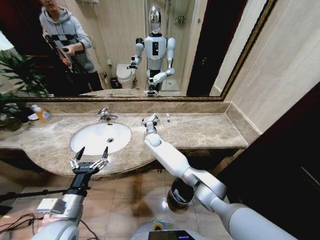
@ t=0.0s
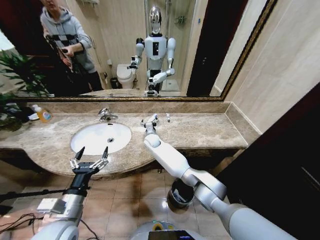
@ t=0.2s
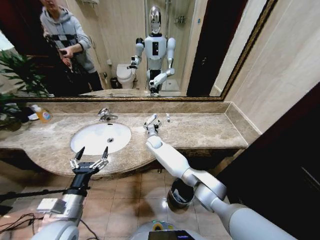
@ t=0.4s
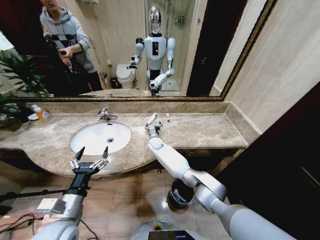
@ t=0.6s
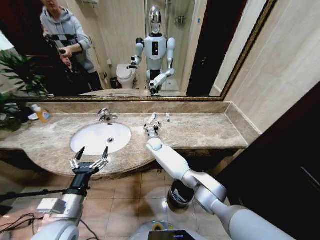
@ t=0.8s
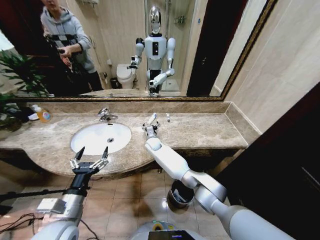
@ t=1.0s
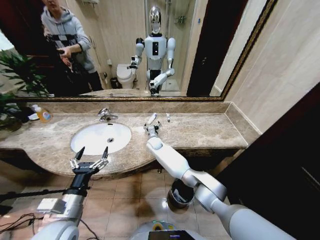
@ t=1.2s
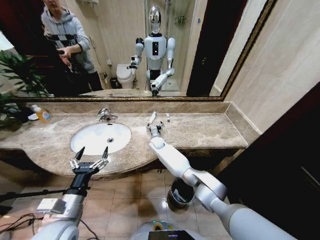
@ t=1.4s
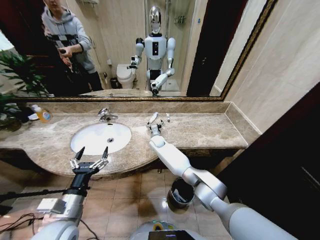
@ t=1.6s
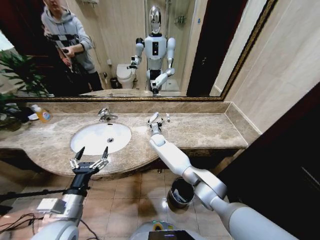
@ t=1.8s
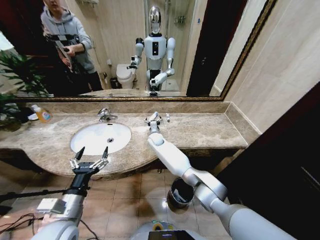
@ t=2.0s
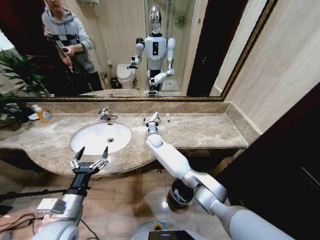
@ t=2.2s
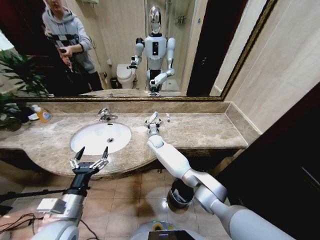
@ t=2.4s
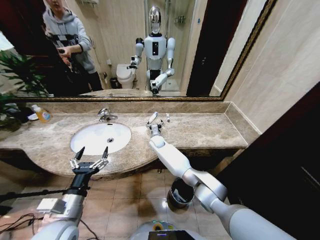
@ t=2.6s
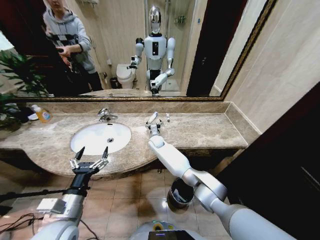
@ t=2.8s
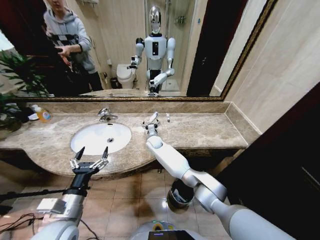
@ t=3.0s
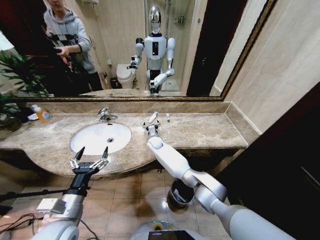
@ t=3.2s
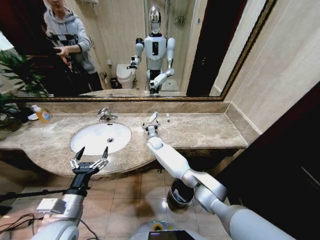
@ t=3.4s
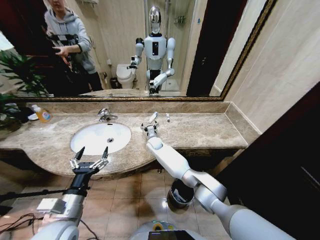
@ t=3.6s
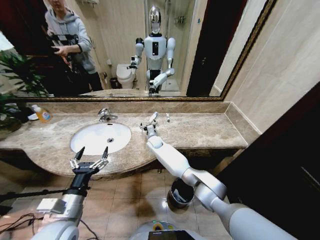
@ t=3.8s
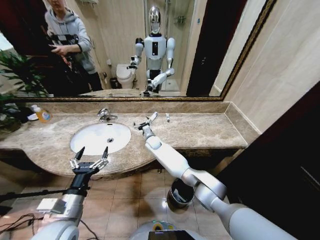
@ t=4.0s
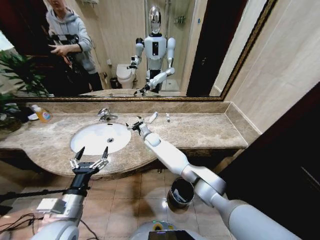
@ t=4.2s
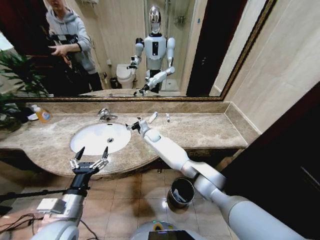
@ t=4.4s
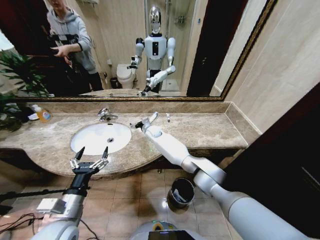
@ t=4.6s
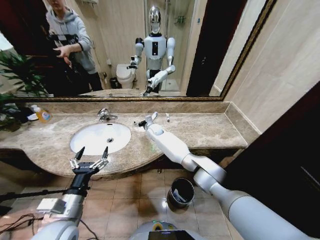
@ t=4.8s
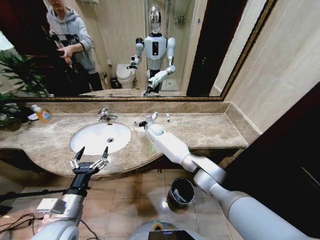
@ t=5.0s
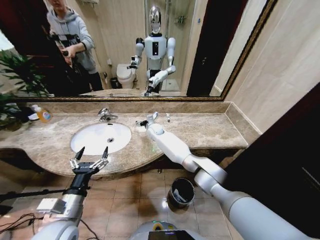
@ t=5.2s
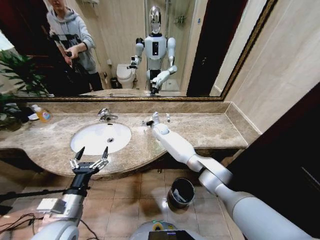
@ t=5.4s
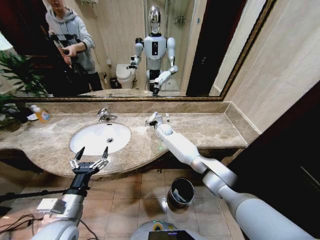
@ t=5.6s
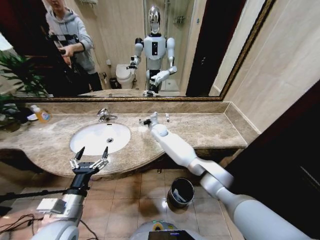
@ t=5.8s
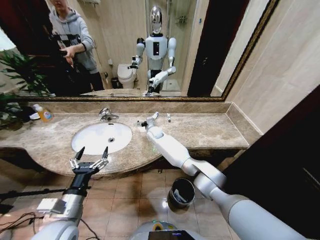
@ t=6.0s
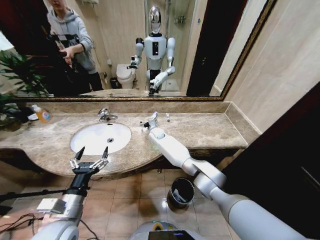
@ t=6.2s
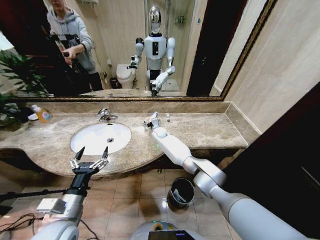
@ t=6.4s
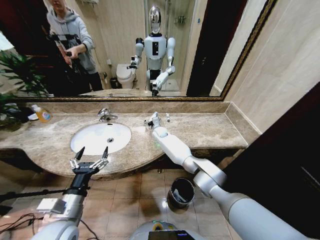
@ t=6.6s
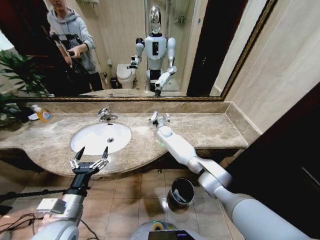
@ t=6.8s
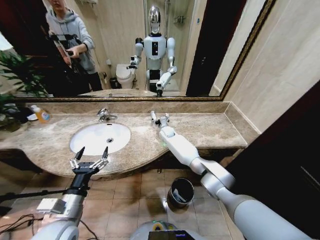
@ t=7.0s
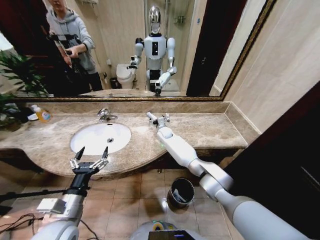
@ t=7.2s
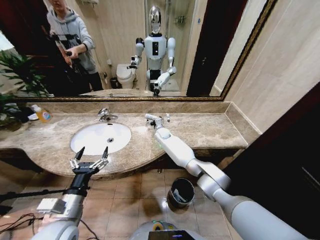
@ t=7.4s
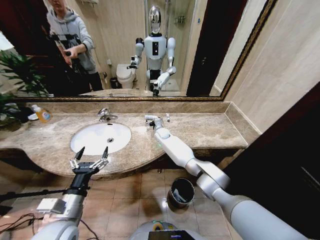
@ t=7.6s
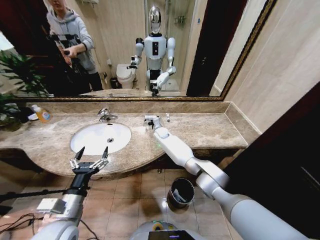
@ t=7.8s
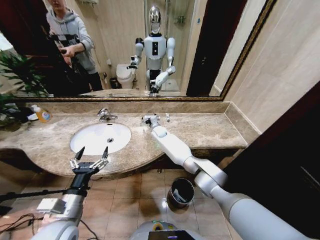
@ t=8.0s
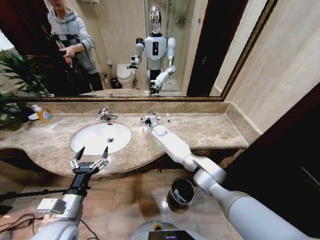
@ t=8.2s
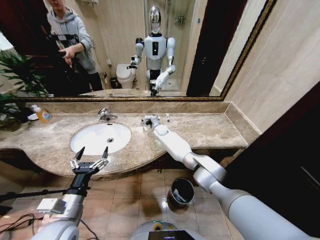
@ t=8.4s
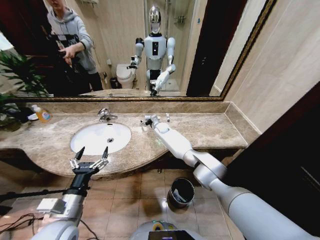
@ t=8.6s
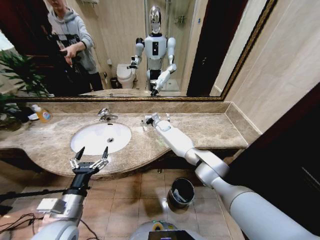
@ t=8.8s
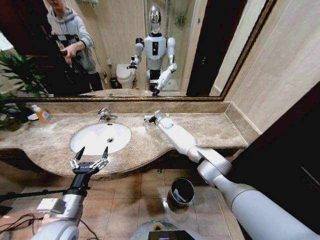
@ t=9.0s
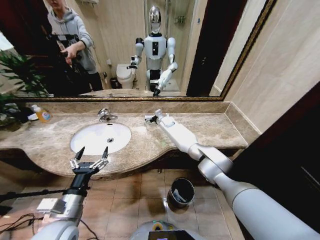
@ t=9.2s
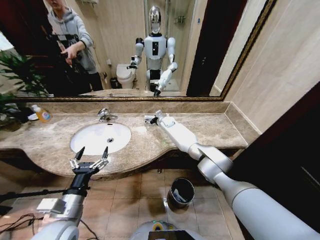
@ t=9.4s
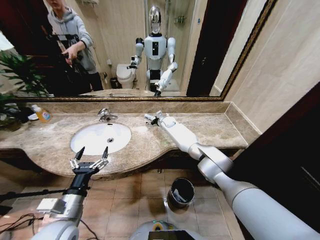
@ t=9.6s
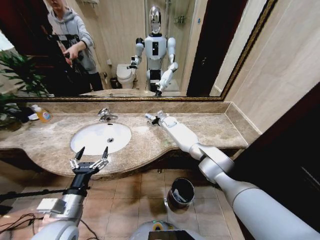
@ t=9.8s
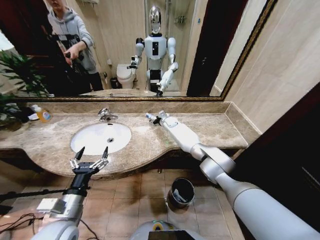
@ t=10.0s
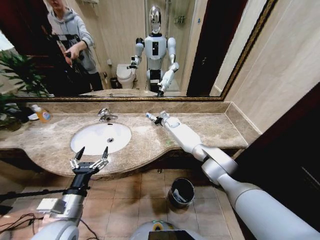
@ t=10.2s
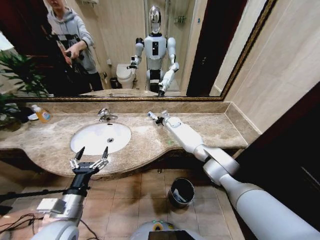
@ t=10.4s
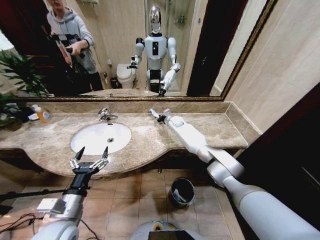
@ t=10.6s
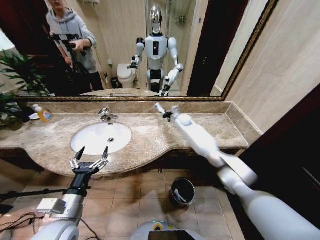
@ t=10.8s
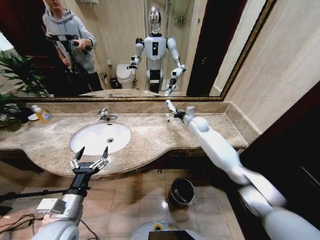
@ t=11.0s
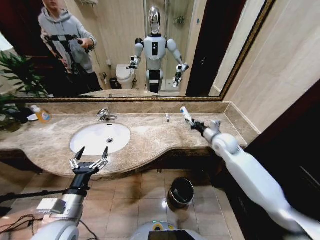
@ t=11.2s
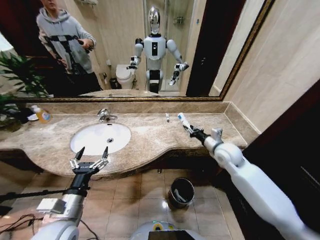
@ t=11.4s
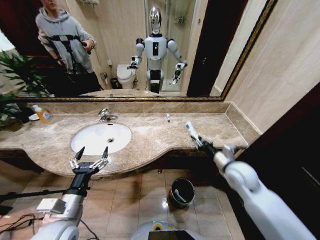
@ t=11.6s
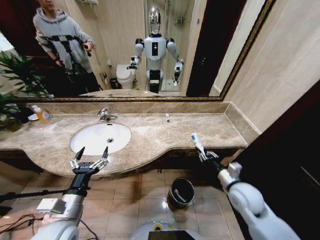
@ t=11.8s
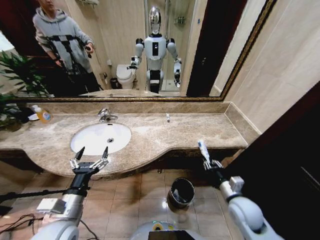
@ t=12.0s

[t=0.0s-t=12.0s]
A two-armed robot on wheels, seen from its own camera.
Task of the whole recording: Pick up the trash from the sink and place it in the trash bin.
t=0.0s to t=1.6s: The right gripper shifts by about 5 cm.
t=1.6s to t=3.0s: There are only small adjustments of the grippers.
t=6.0s to t=7.6s: The right gripper moves about 5 cm.
t=7.6s to t=9.0s: The right gripper shifts by approximately 5 cm.
t=9.0s to t=10.4s: The right gripper is displaced to the right by approximately 5 cm, and closes up.
t=10.4s to t=12.0s: The right gripper heads backward and to the right, covering approximately 50 cm.

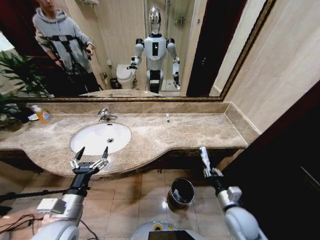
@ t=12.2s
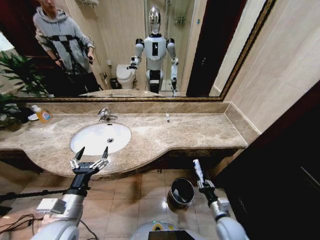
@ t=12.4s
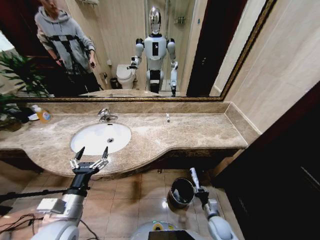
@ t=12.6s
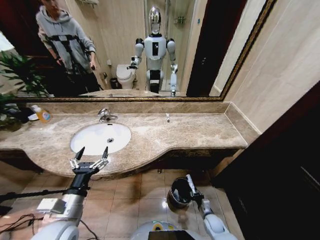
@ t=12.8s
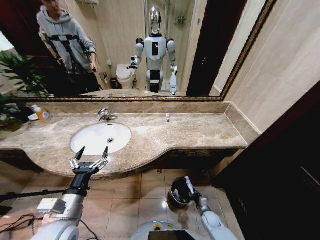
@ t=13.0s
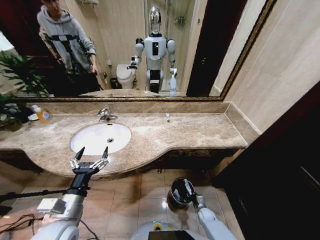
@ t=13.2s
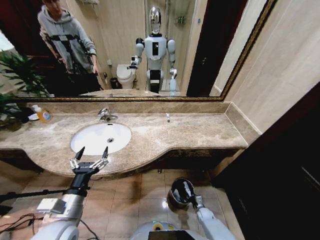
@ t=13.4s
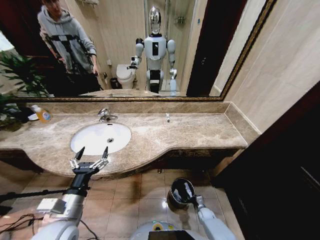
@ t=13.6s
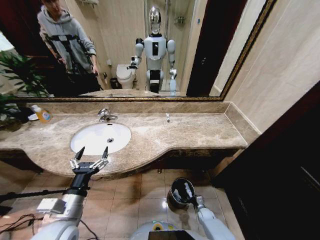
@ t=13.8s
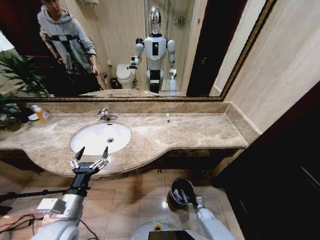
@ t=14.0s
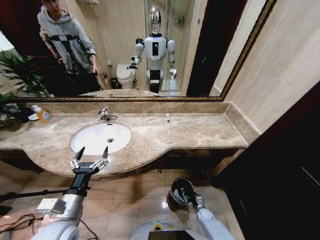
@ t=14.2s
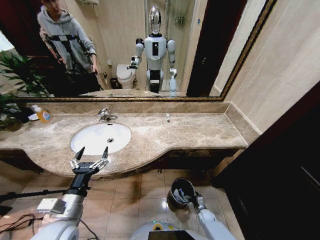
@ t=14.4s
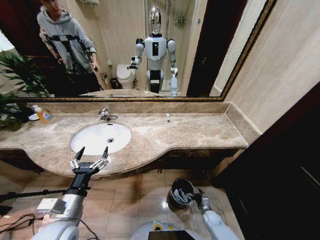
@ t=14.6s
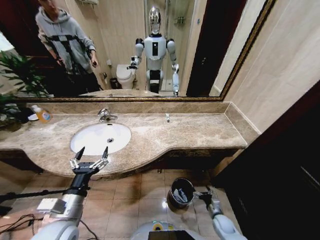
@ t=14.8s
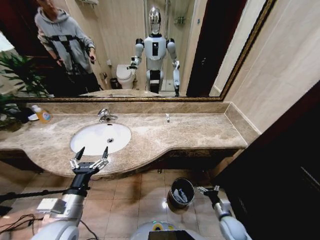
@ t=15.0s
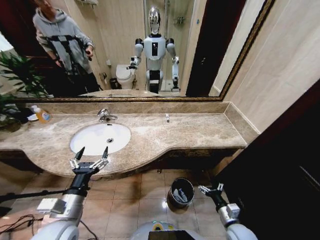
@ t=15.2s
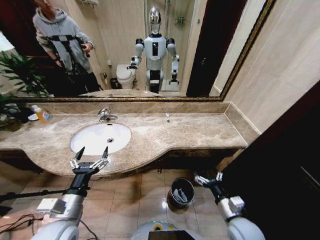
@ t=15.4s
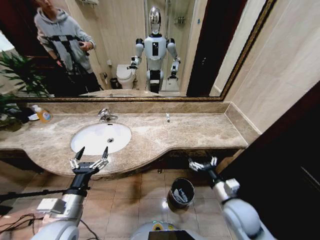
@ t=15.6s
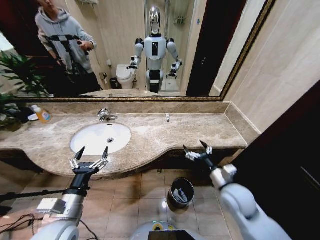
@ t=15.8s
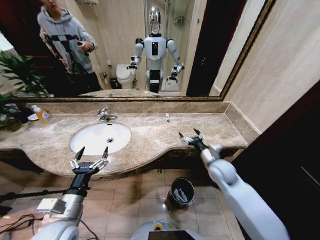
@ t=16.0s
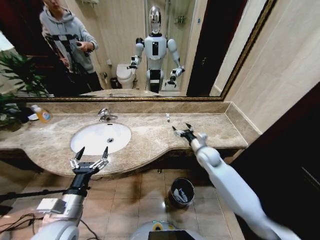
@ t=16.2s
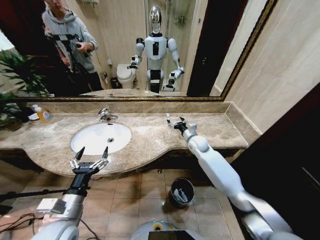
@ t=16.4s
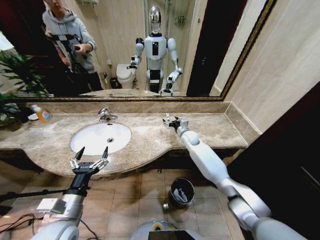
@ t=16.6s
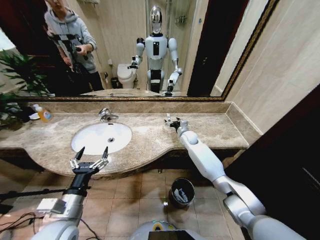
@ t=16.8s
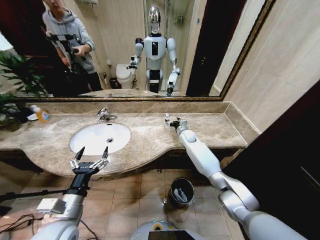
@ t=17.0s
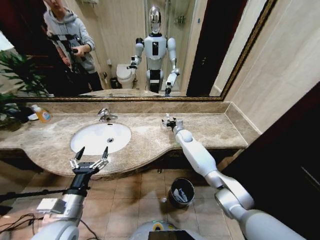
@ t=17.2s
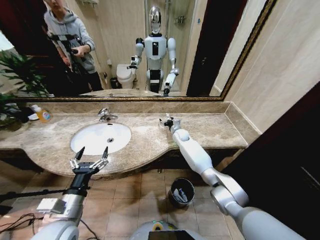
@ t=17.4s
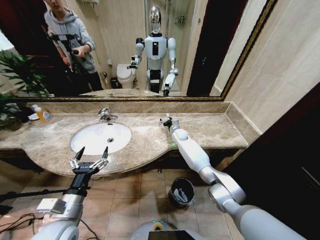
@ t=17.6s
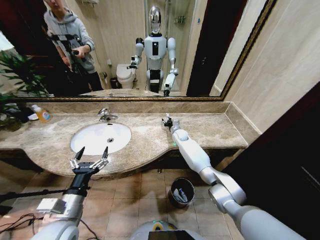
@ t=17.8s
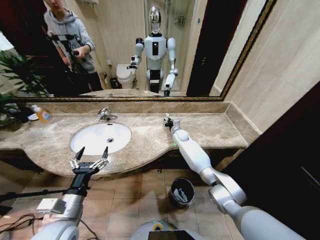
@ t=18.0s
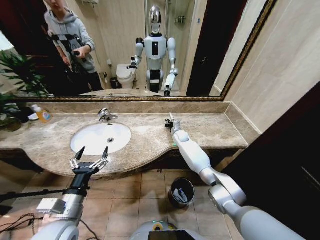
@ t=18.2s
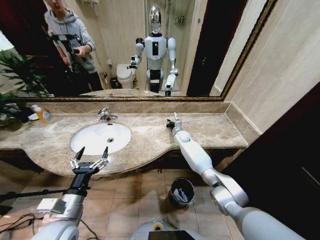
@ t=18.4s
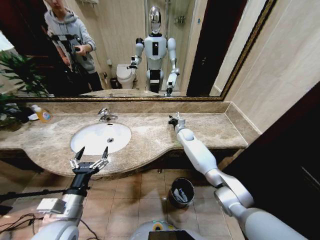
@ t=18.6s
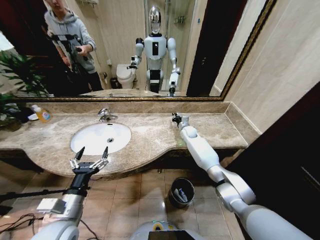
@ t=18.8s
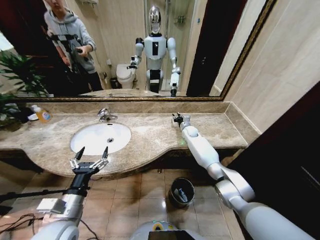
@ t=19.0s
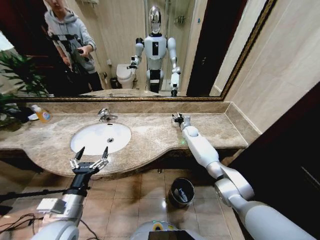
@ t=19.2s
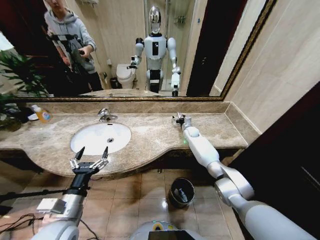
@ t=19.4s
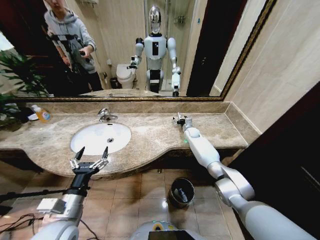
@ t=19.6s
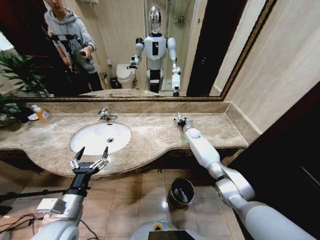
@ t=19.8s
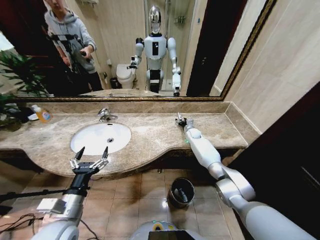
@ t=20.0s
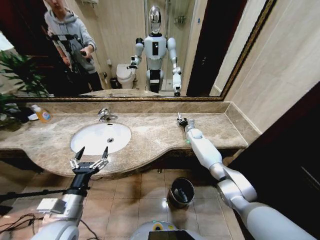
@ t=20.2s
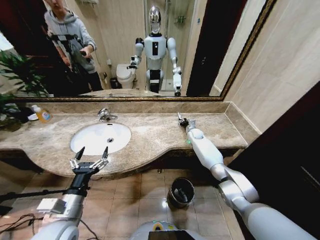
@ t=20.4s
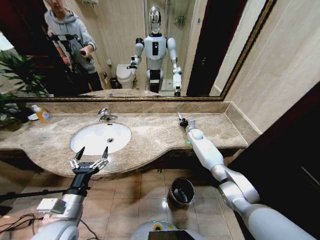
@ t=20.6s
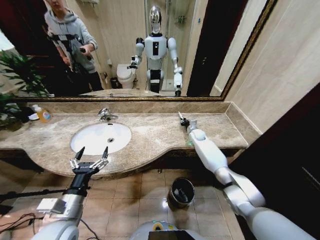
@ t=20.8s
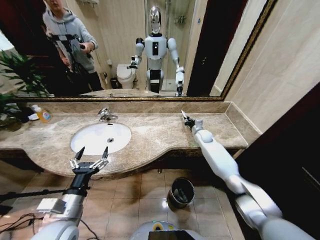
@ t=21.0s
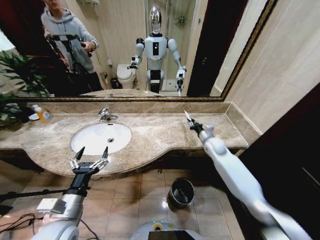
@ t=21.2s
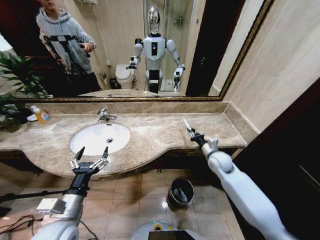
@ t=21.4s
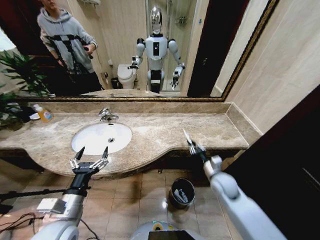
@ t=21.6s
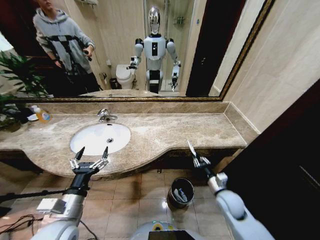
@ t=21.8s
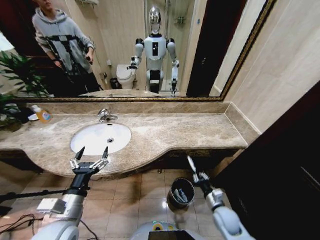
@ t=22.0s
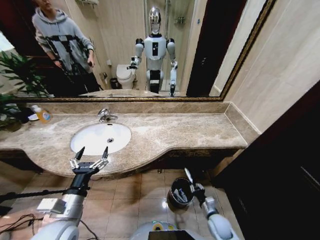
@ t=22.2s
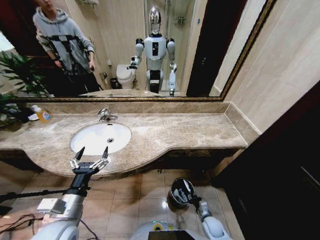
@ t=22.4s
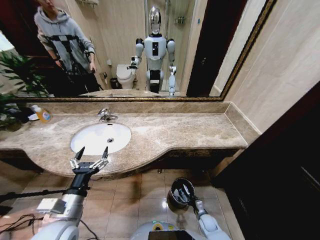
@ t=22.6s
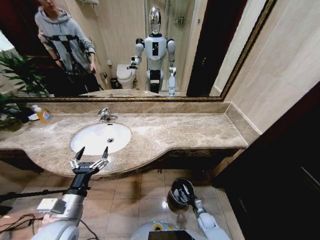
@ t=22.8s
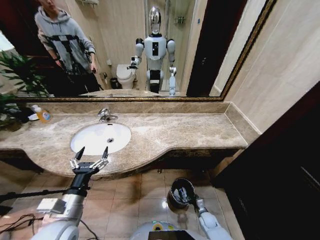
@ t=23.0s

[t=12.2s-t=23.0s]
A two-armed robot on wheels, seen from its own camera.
Task of the whole recording: Pick up the trash from the sink and place it in the trash bin.
t=12.2s to t=13.8s: The right gripper goes roughly 30 cm downward.
t=13.8s to t=15.2s: The right gripper is displaced upward and backward by about 30 cm, and opens.
t=15.2s to t=16.8s: The right gripper shifts approximately 40 cm forward.
t=16.8s to t=18.4s: The right gripper shifts by some 5 cm, and closes up.
t=18.4s to t=20.0s: The right gripper moves to the right, approximately 10 cm, and opens its fingers.
t=20.0s to t=21.4s: The right gripper is displaced backward by approximately 25 cm, and closes.
t=21.4s to t=23.0s: The right gripper heads downward and backward, covering about 40 cm.
